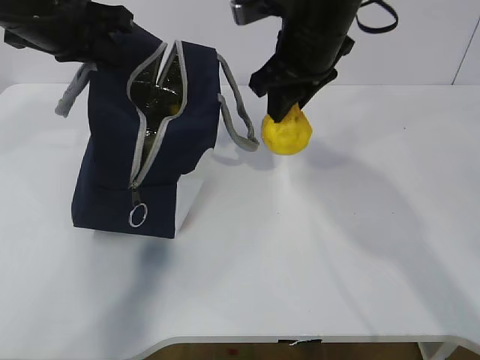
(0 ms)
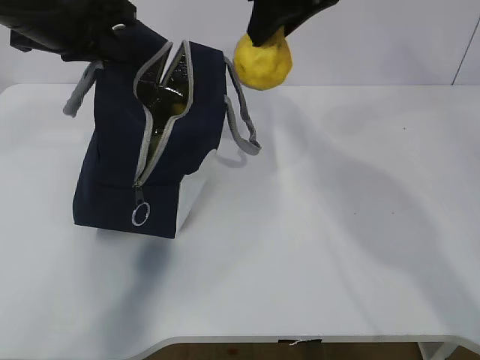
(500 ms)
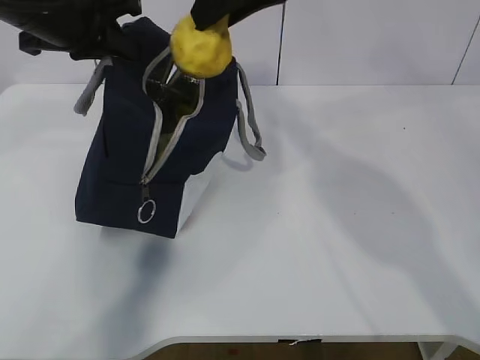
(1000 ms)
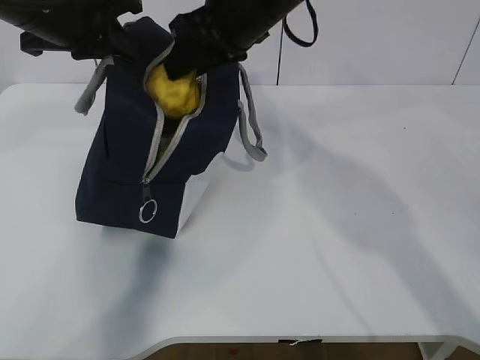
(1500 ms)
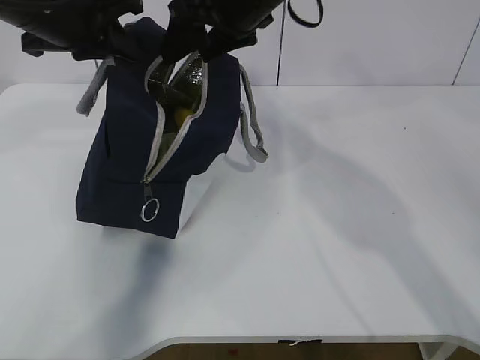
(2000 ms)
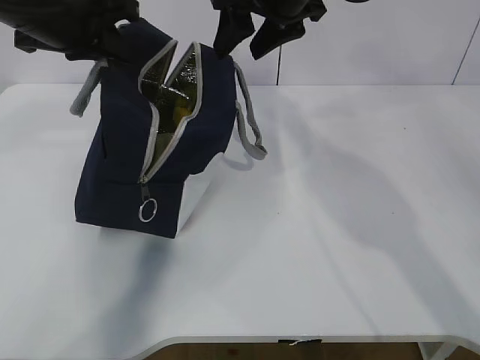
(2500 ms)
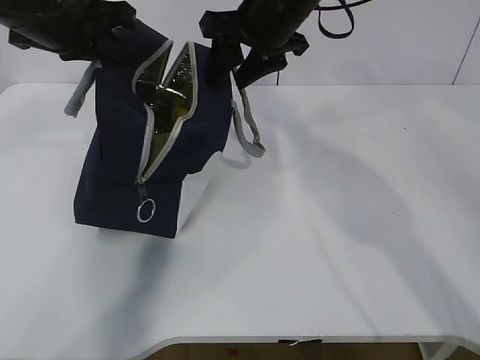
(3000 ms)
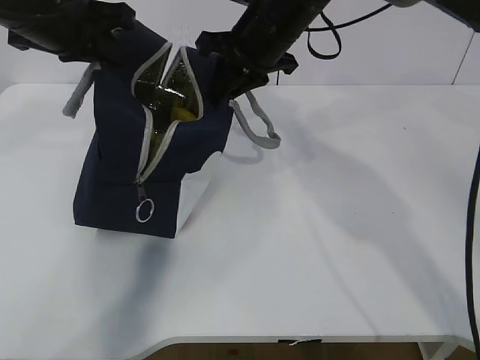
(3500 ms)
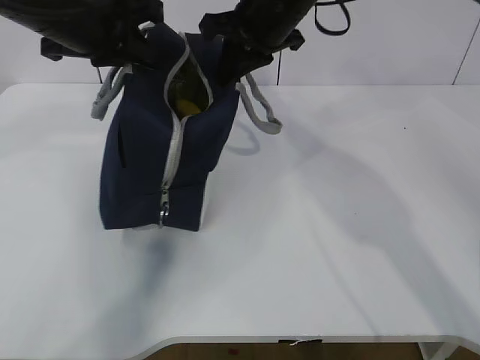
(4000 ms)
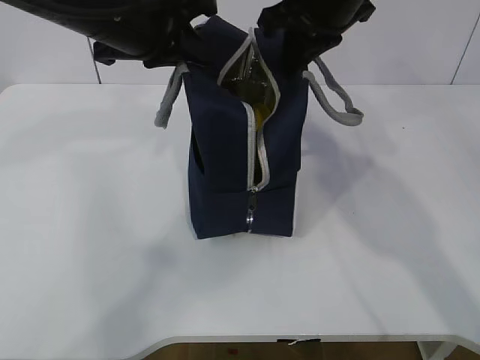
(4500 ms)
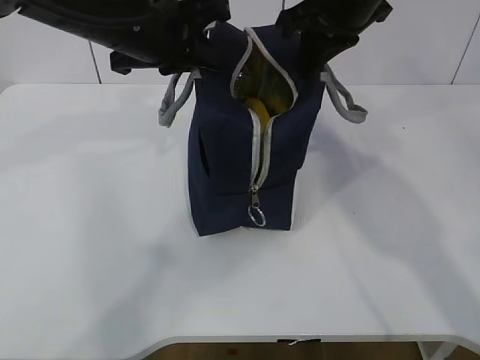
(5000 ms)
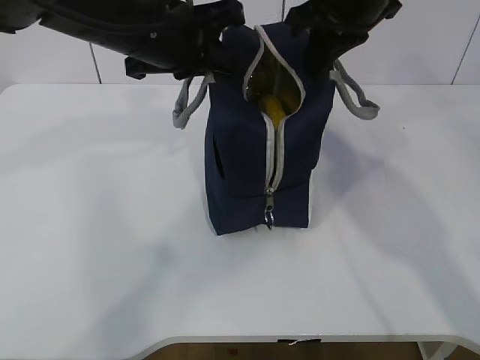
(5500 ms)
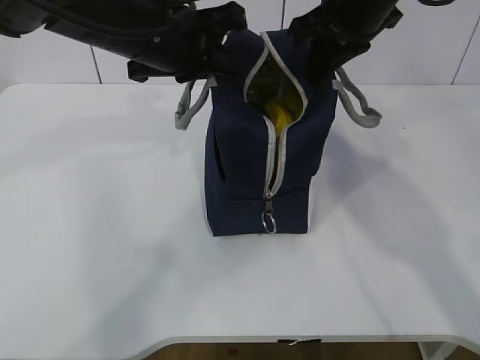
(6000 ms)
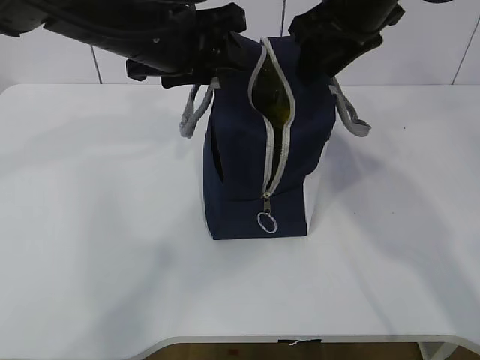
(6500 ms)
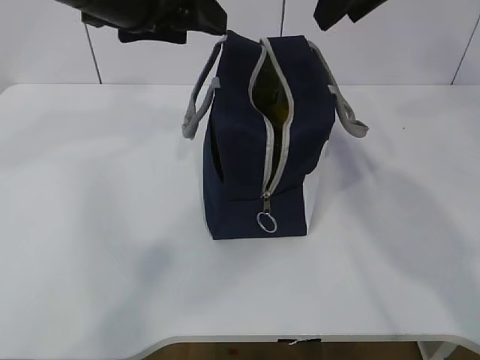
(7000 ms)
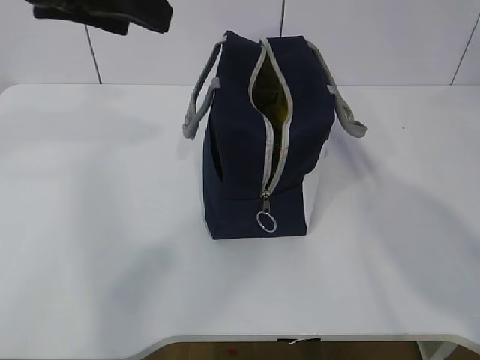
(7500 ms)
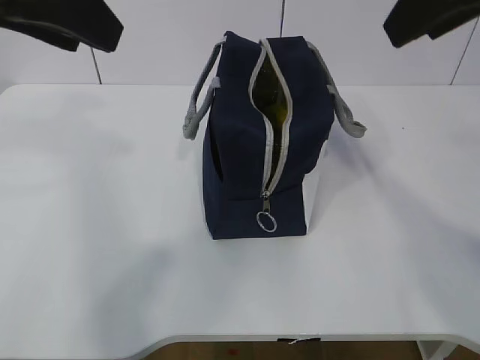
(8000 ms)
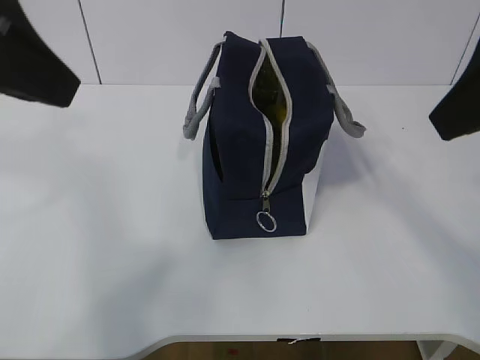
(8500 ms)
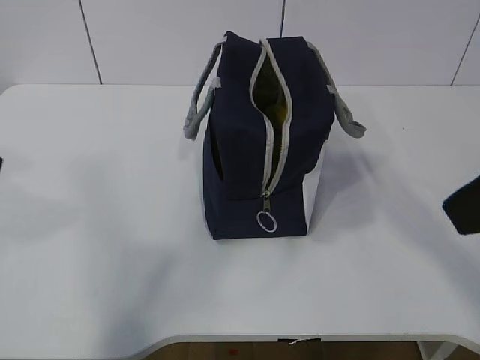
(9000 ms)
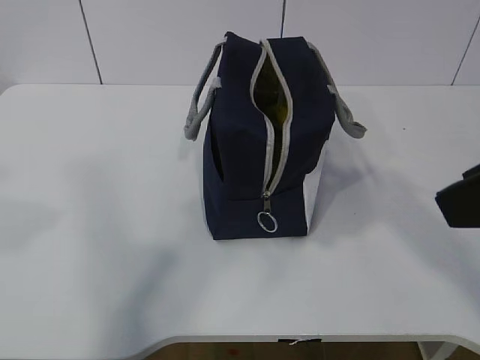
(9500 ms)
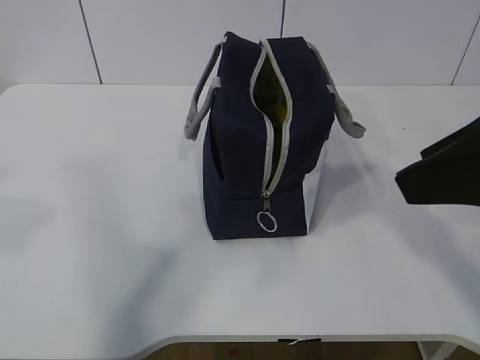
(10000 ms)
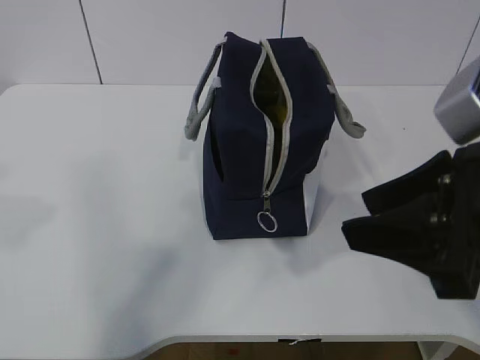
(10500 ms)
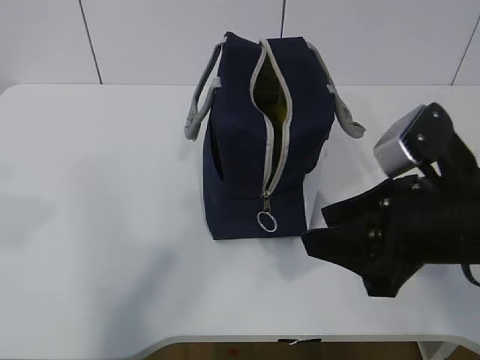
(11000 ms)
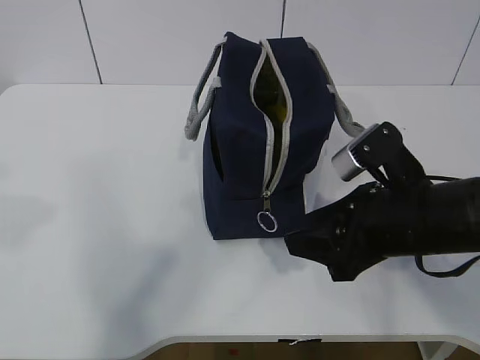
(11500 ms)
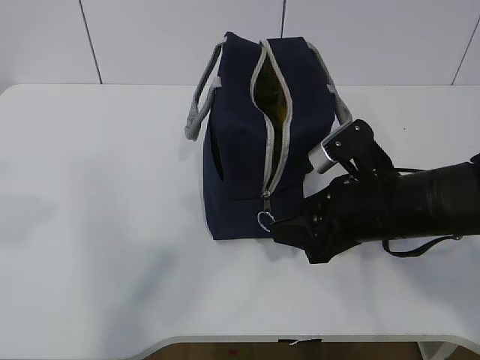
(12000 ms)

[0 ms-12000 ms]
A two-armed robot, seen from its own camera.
0 ms to 2000 ms: The right gripper heads to the left, covering roughly 5 cm, and opens its fingers.
2000 ms to 4000 ms: The right gripper closes its fingers.
4000 ms to 6000 ms: Both grippers travel together to the right, roughly 5 cm.
6000 ms to 8000 ms: The right gripper moves backward and upward, about 15 cm, and opens its fingers. The left gripper goes approximately 20 cm backward, upward and to the left, and opens.
8000 ms to 10000 ms: The left gripper is displaced backward and to the left by about 15 cm, while the right gripper moves backward and downward, about 10 cm.
10000 ms to 12000 ms: The right gripper moves downward and forward, about 20 cm.

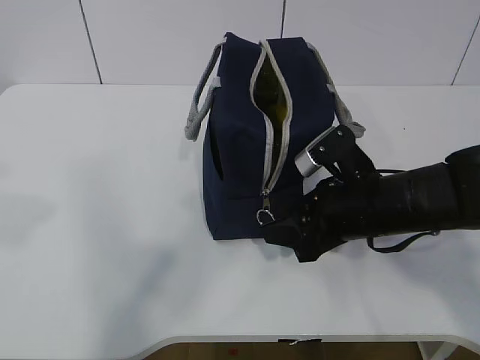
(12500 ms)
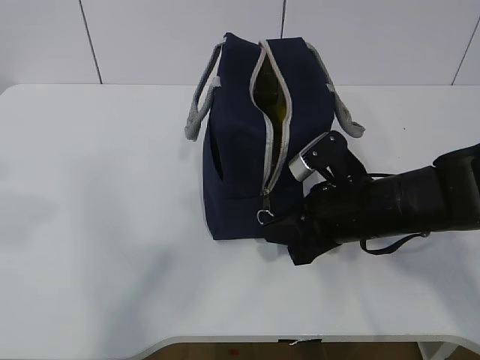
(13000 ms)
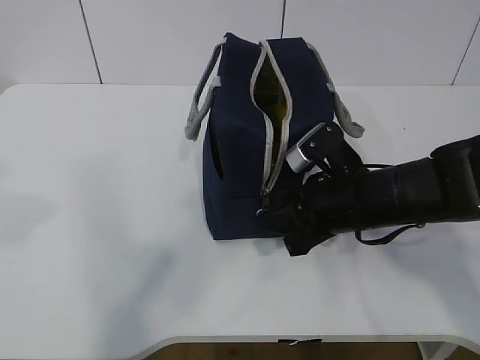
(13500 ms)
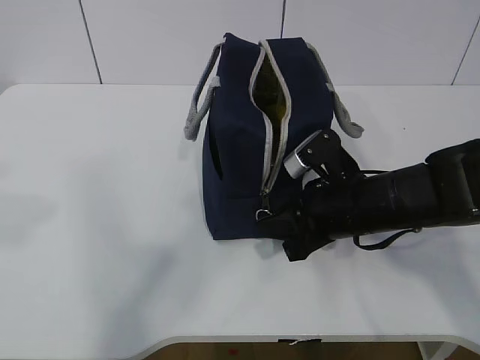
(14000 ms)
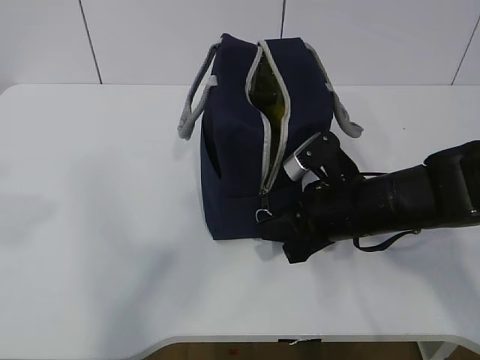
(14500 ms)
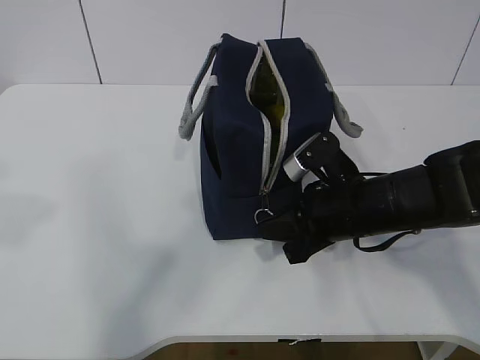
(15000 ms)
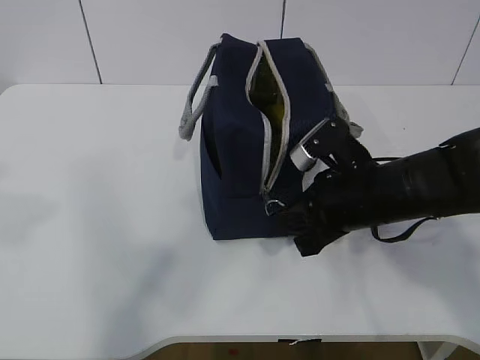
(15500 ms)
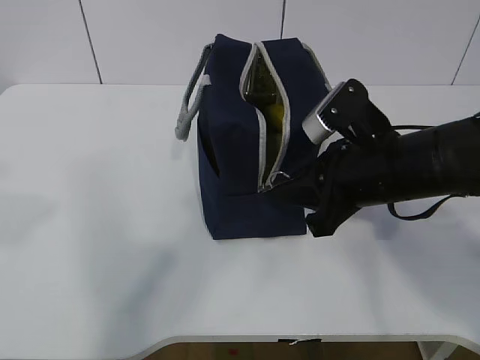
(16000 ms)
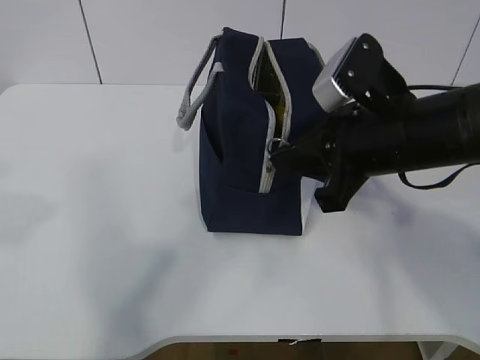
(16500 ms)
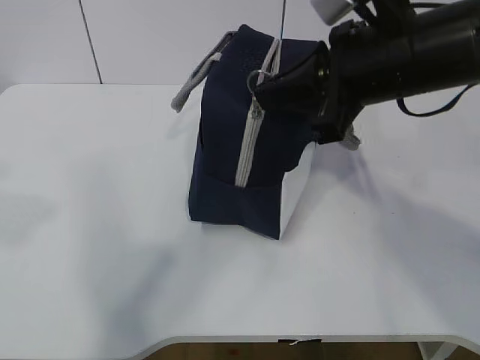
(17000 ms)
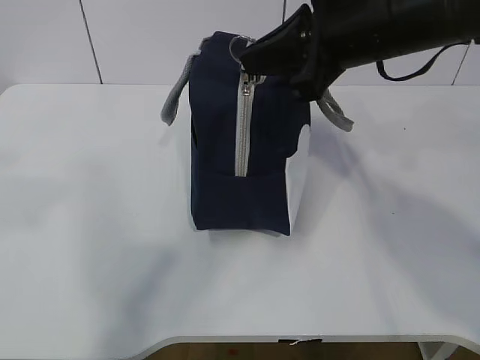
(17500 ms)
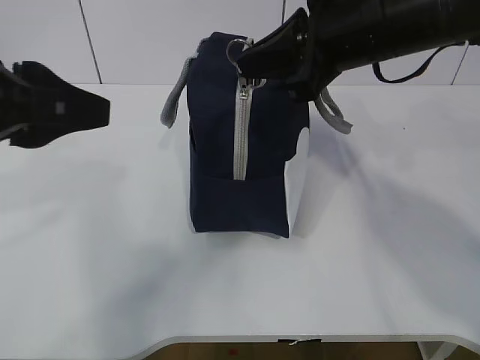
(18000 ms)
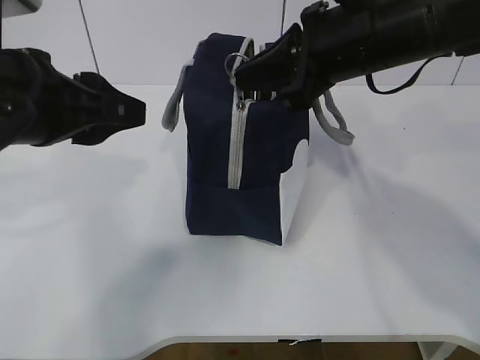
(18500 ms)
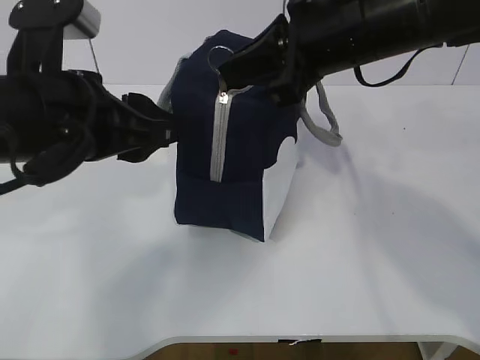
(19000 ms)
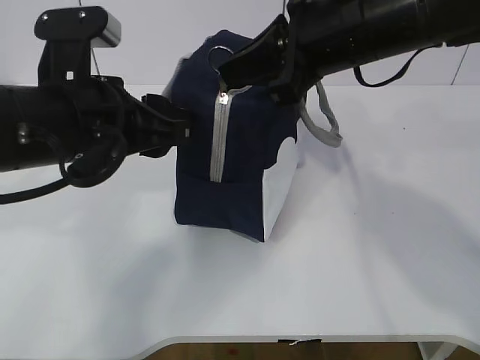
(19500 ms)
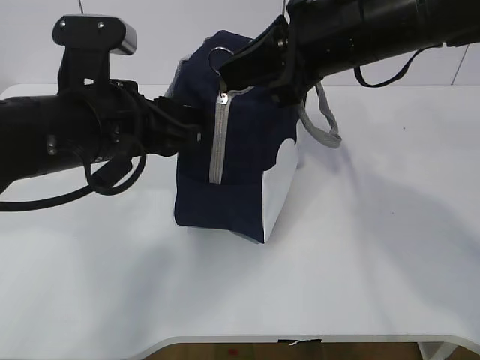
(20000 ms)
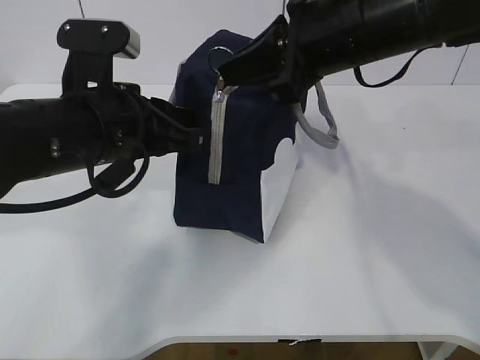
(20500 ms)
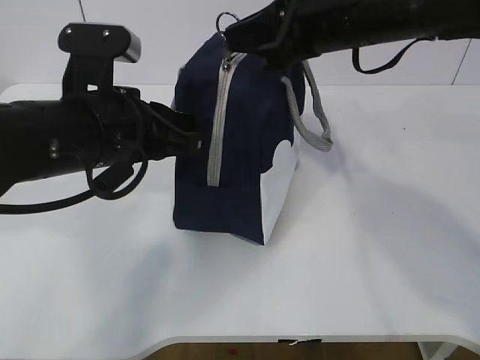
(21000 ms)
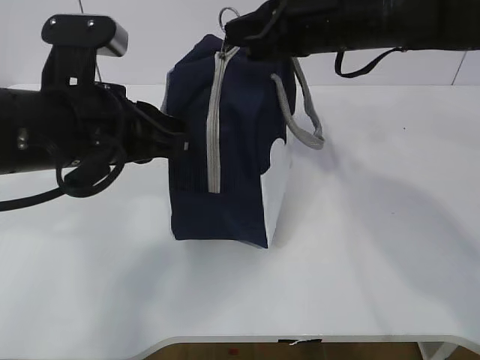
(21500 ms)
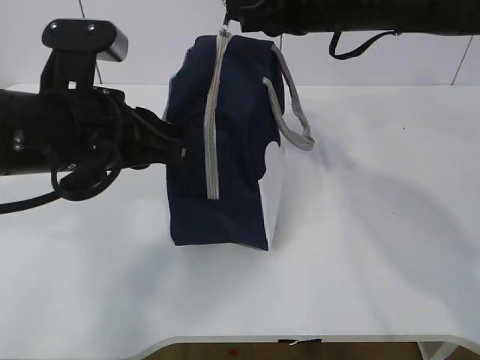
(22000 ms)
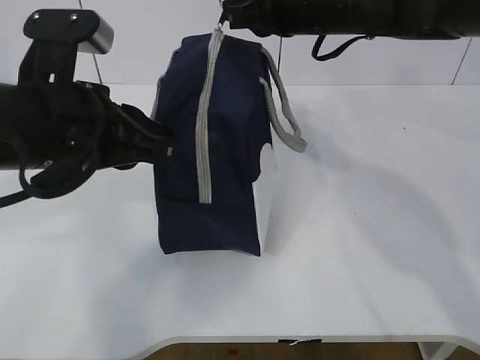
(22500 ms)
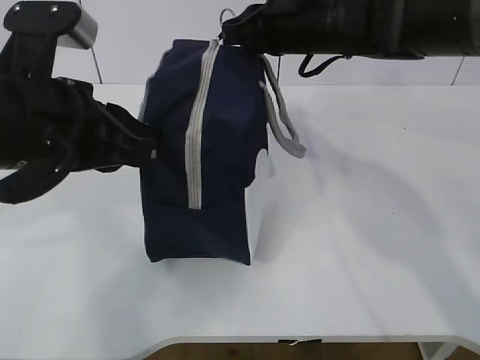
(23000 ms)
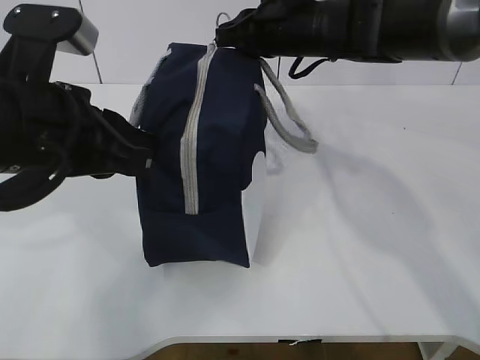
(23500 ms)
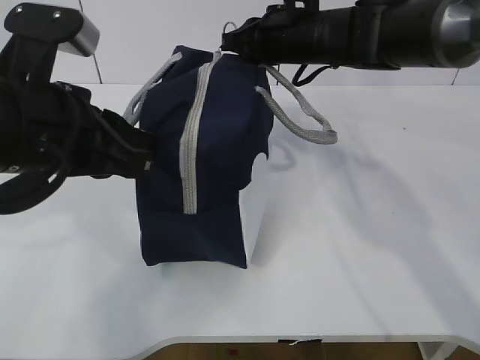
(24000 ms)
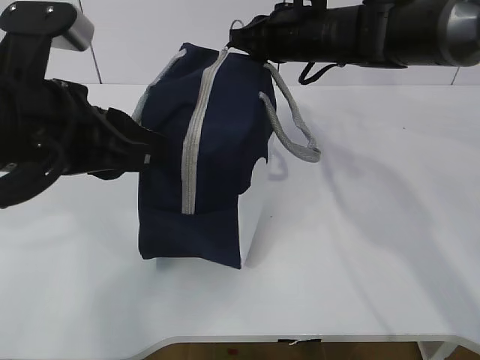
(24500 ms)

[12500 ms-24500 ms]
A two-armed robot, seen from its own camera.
Step, 16000 ms to 20500 ms: Pull the zipper with your right hand.
Step, 21000 ms to 21500 ms: Grab the lunch bag with your left hand.
12500 ms to 14500 ms: The right gripper closes its fingers.
14500 ms to 16500 ms: The right gripper heads upward, covering roughly 10 cm.
16500 ms to 18500 ms: The left gripper moves forward, to the right and downward, roughly 15 cm; the right gripper moves upward and forward, some 10 cm.
18500 ms to 20500 ms: The left gripper is displaced downward by approximately 5 cm, and closes up.
20500 ms to 22500 ms: The right gripper shifts approximately 10 cm forward.
22500 ms to 24500 ms: The right gripper goes about 10 cm forward and downward. Meanwhile the left gripper opens.

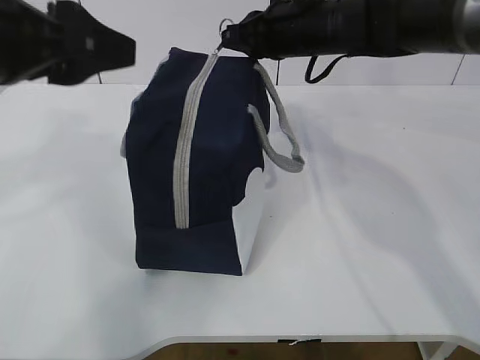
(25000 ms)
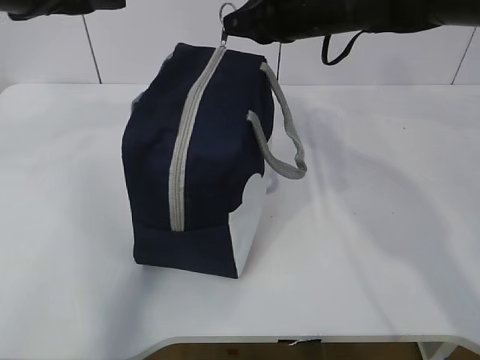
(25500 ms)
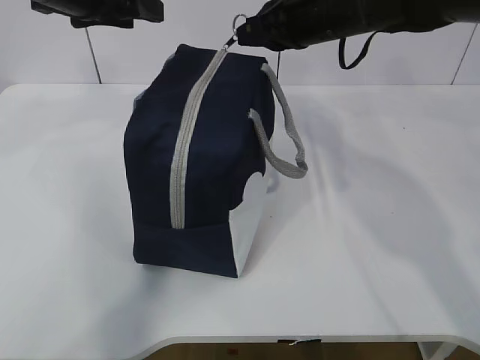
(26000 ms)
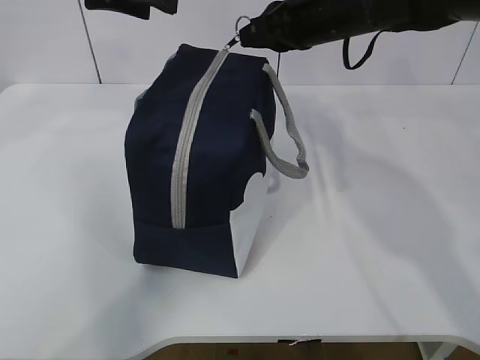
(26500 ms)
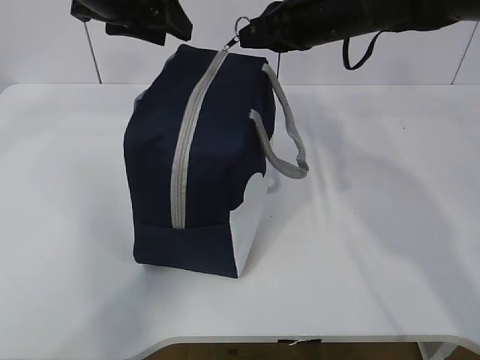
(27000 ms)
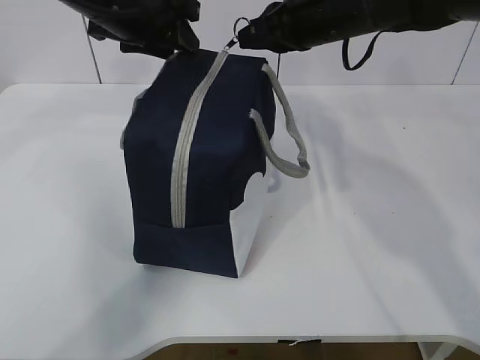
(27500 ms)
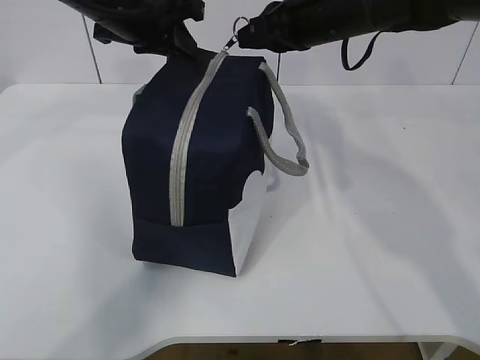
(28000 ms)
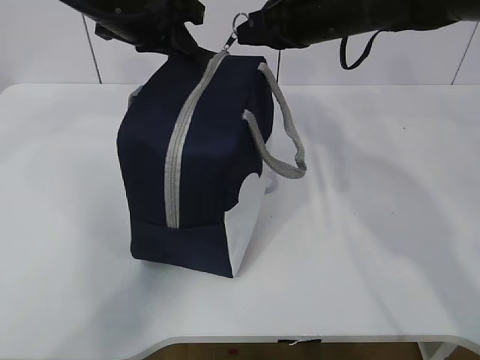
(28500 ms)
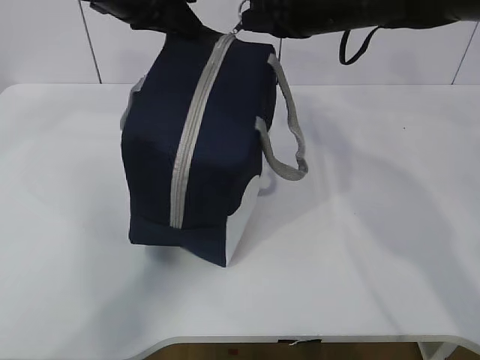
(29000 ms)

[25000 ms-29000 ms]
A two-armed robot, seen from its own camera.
25000 ms to 27000 ms: The left gripper is displaced forward by roughly 15 cm.
27000 ms to 29000 ms: The left gripper closes its fingers.
